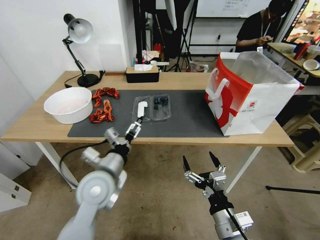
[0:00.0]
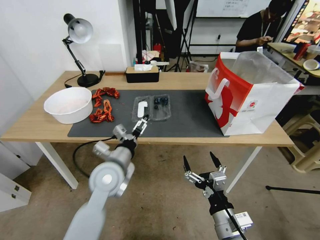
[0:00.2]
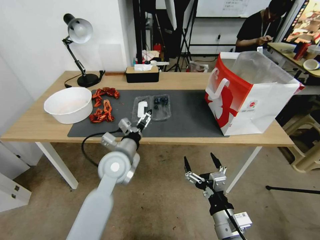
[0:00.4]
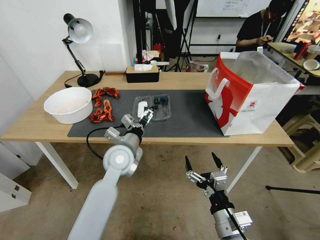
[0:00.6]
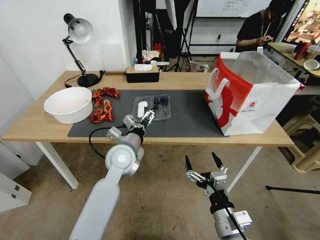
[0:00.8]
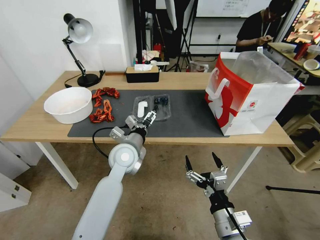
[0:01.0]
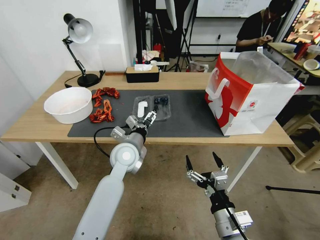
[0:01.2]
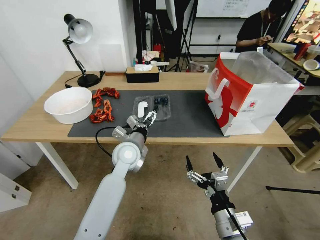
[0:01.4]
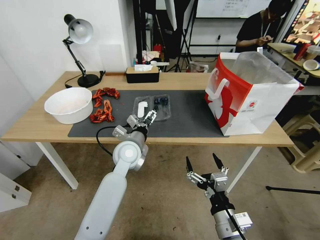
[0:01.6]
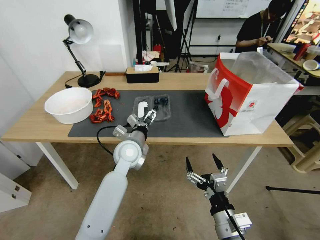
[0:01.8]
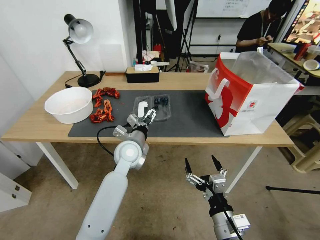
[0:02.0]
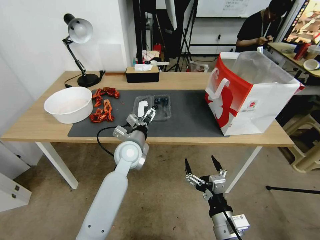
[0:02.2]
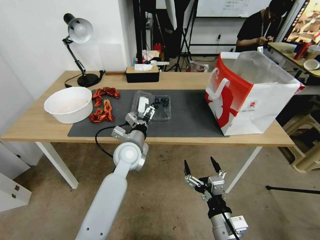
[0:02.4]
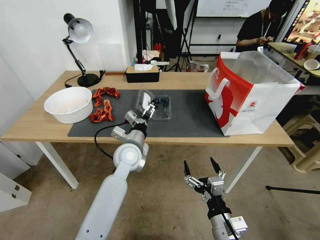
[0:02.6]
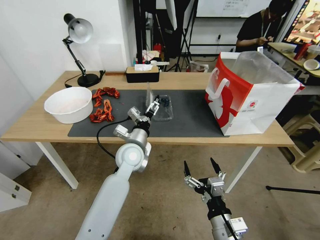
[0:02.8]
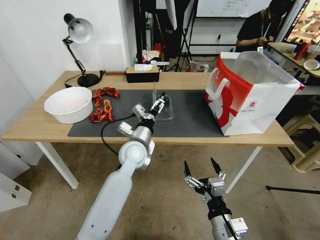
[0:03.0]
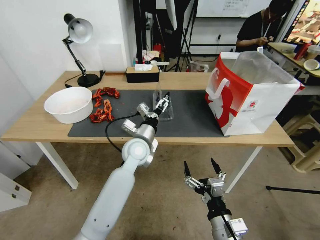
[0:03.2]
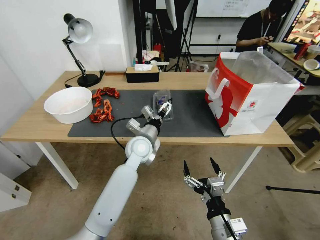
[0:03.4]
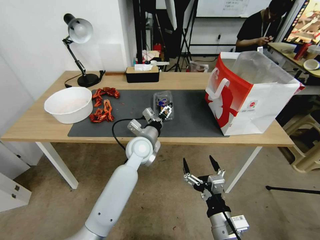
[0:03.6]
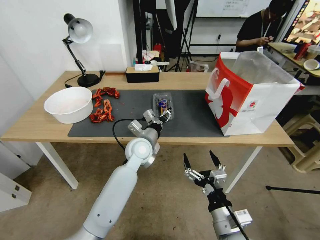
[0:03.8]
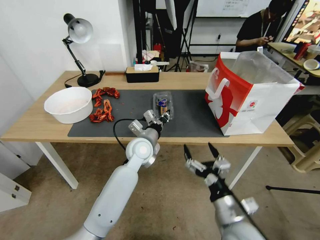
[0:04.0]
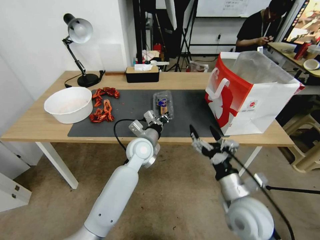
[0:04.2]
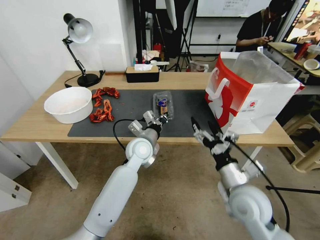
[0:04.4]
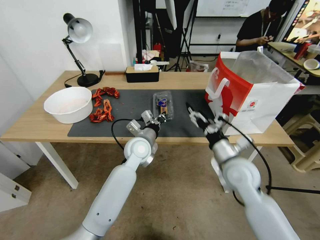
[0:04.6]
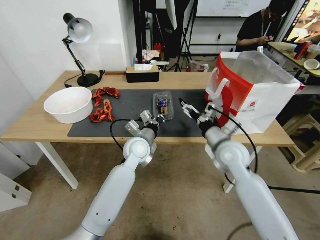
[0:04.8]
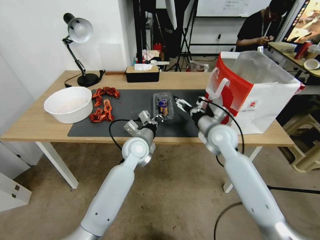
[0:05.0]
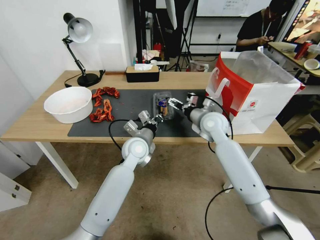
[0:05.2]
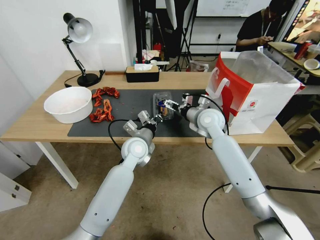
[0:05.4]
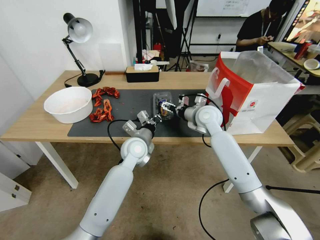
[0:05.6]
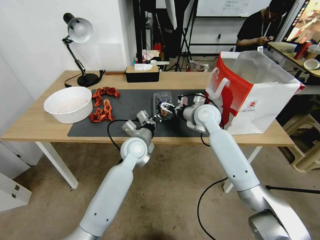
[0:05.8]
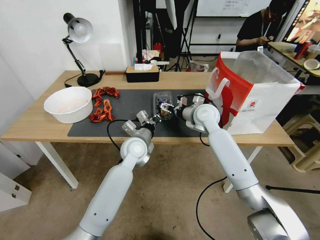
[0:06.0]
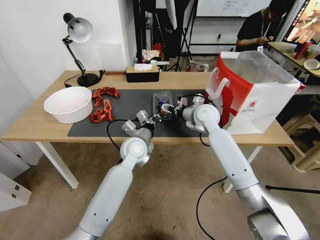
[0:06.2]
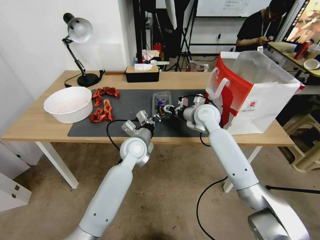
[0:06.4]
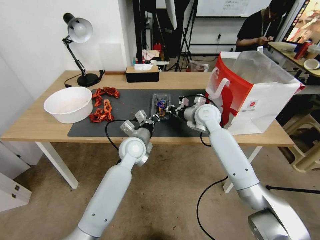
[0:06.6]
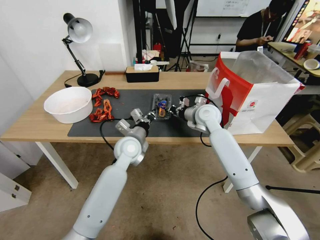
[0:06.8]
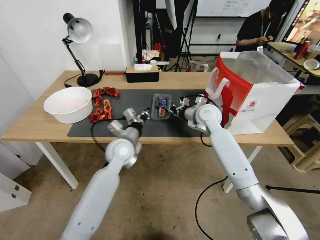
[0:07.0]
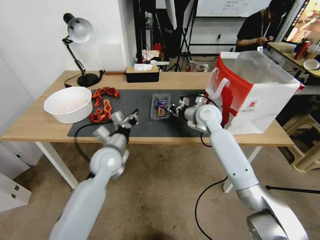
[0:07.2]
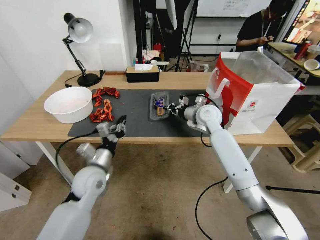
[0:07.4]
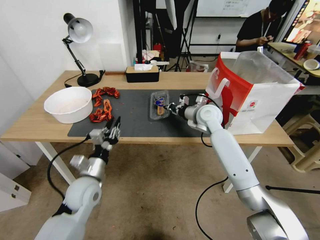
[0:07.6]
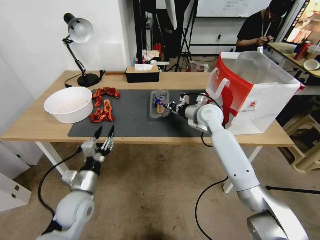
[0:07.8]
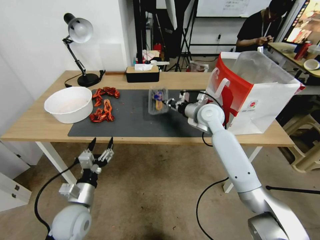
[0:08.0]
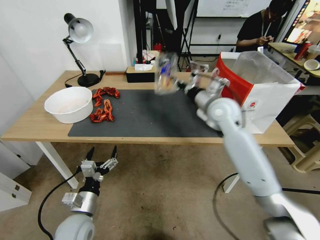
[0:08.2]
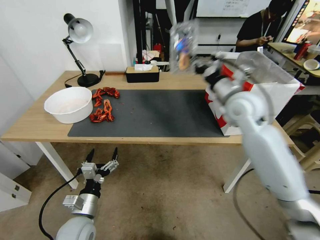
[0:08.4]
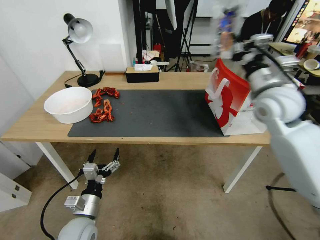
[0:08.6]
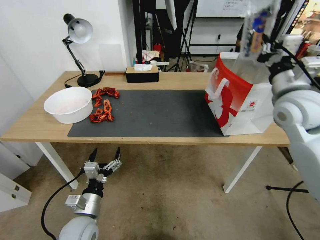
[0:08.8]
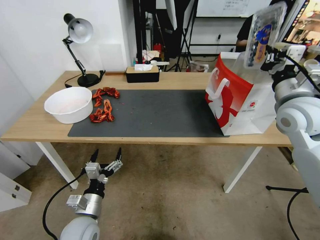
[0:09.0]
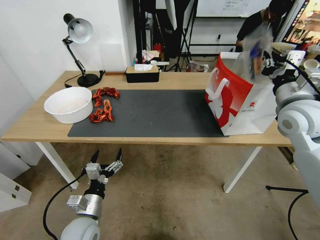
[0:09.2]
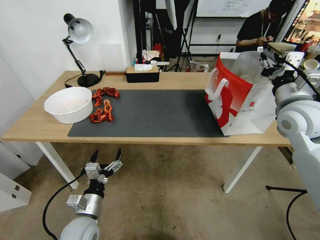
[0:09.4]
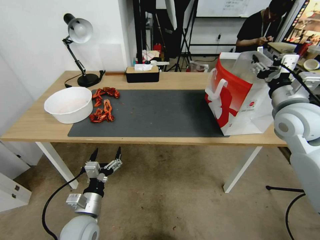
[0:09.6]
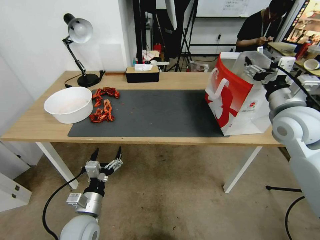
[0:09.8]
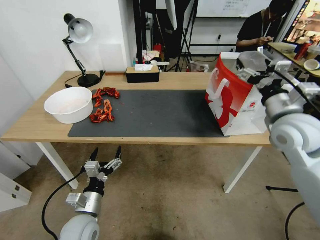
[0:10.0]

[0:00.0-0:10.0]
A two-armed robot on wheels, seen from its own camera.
Task of the whole recording: Close the takeout container lid, then place the container into the takeout bag.
0:00.0 to 0:01.4: The left gripper moves forward and to the right, about 15 cm.
0:01.4 to 0:02.8: There are only small adjustments of the grippers.
0:02.8 to 0:04.2: The left gripper closes, while the right gripper moves forward and upward, roughly 10 cm.
0:04.2 to 0:05.8: The right gripper goes approximately 30 cm forward.
0:05.8 to 0:07.2: The right gripper closes; the left gripper travels to the left and backward by approximately 10 cm.
0:07.2 to 0:08.6: The left gripper moves backward and downward, approximately 20 cm, and opens up, while the right gripper is displaced upward, to the right and backward by about 20 cm.
0:08.6 to 0:10.0: The right gripper moves backward, approximately 5 cm, and opens up.

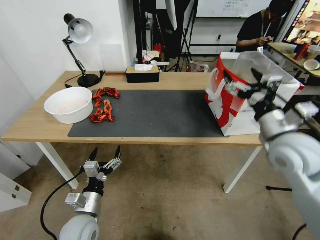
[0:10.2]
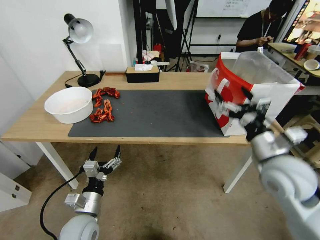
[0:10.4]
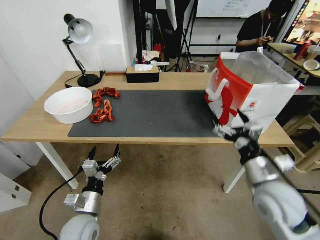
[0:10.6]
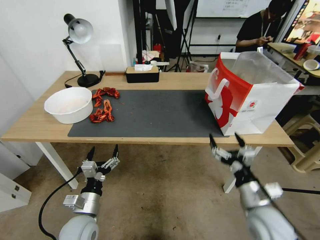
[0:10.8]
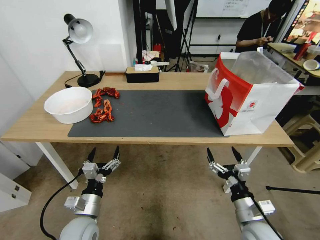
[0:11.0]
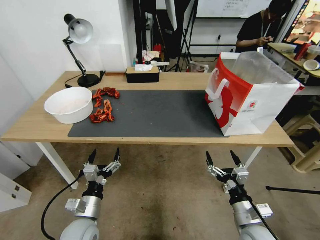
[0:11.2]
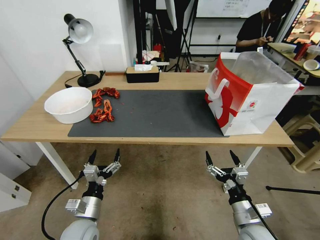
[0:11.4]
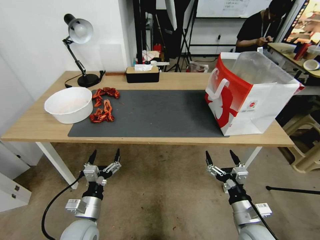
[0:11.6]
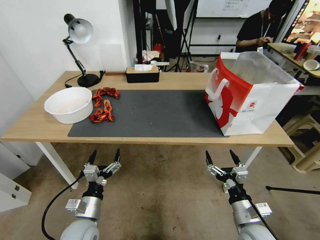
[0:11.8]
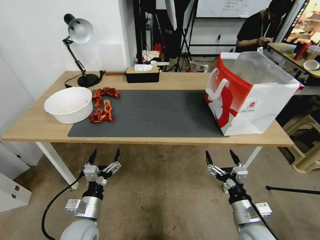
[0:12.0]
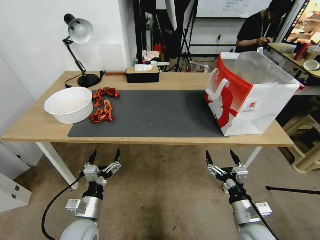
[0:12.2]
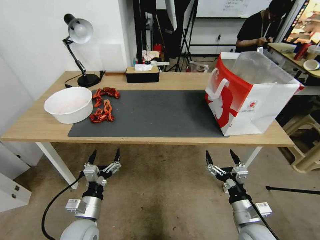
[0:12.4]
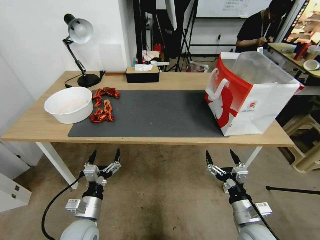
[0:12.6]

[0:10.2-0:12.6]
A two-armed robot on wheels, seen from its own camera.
Task of the whole recording: Close the takeout container lid, then place the container into the takeout bag.
0:10.2 to 0:11.4: The right gripper heads downward and backward, covering some 30 cm.
0:11.4 to 0:12.6: Both grippers stay about where they are.
